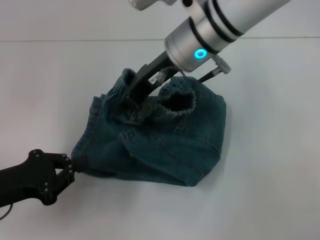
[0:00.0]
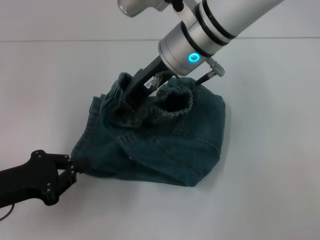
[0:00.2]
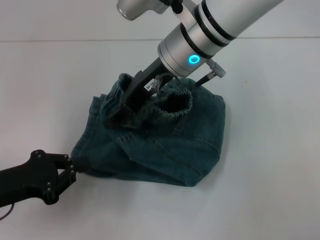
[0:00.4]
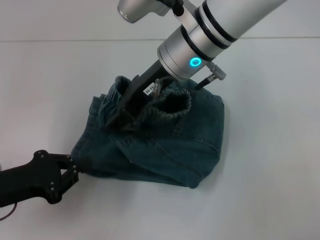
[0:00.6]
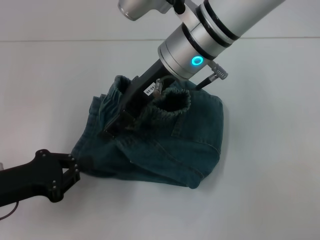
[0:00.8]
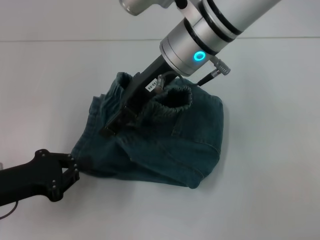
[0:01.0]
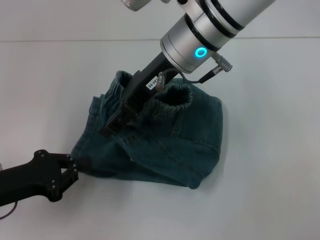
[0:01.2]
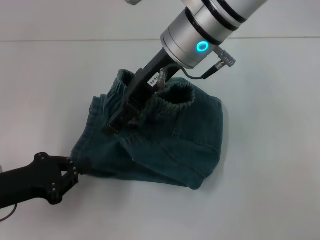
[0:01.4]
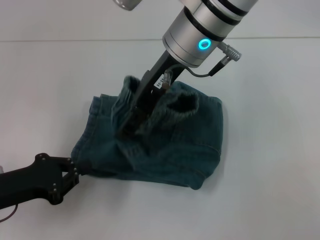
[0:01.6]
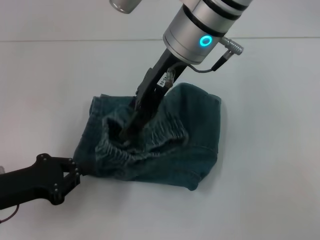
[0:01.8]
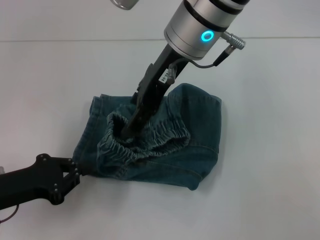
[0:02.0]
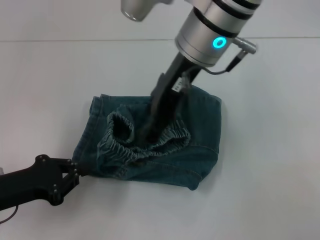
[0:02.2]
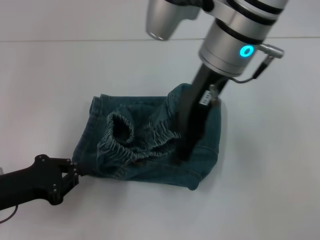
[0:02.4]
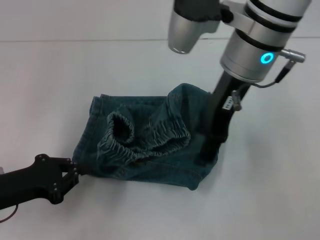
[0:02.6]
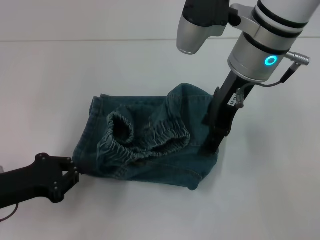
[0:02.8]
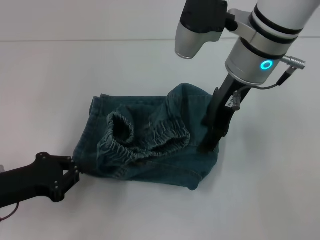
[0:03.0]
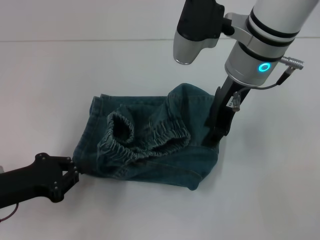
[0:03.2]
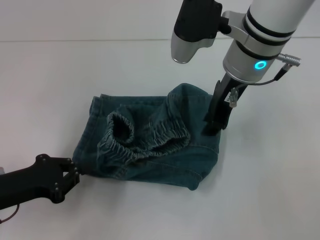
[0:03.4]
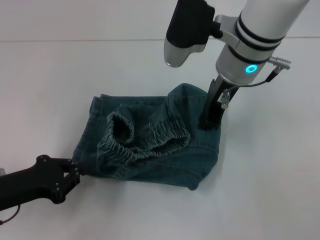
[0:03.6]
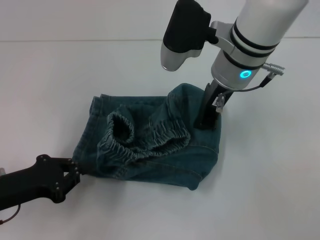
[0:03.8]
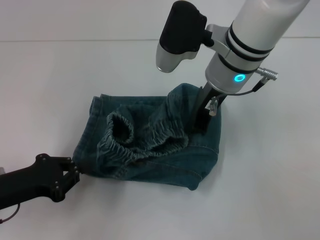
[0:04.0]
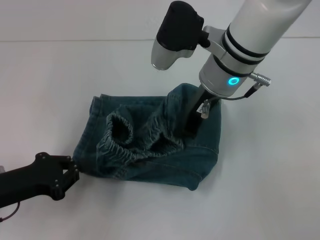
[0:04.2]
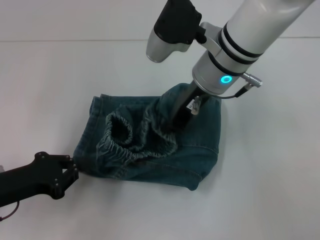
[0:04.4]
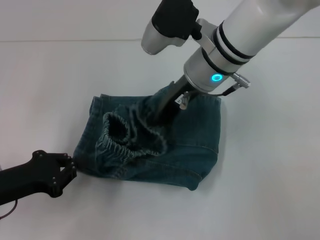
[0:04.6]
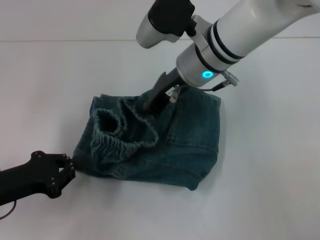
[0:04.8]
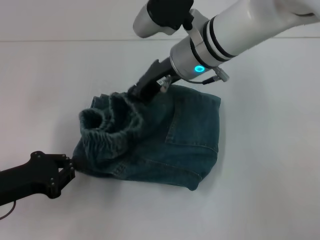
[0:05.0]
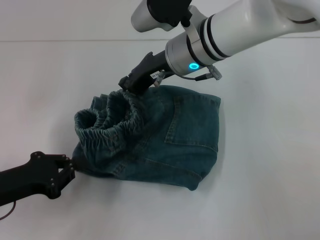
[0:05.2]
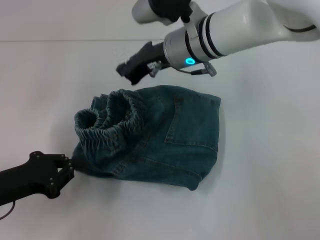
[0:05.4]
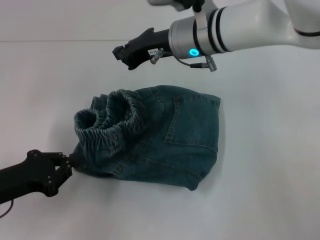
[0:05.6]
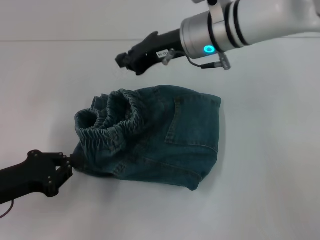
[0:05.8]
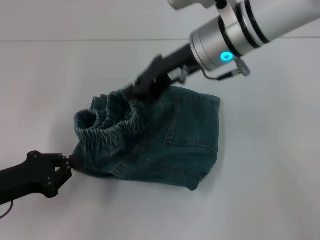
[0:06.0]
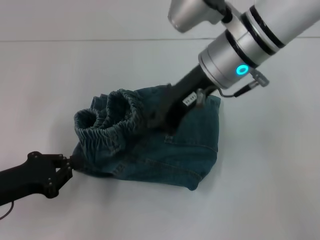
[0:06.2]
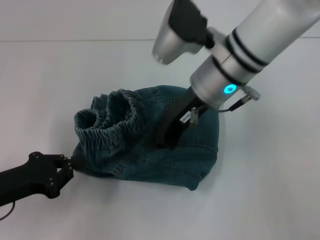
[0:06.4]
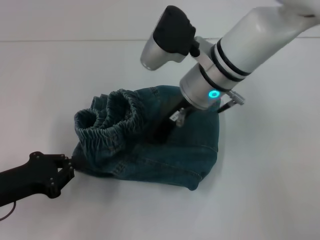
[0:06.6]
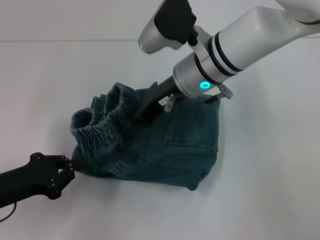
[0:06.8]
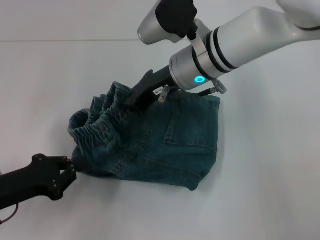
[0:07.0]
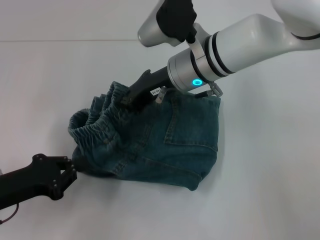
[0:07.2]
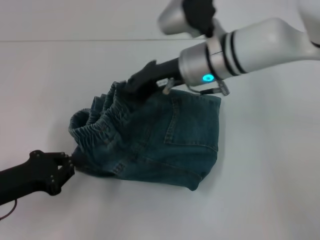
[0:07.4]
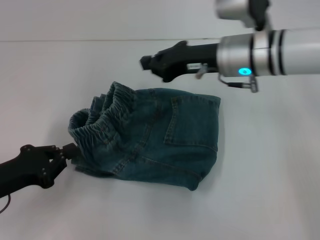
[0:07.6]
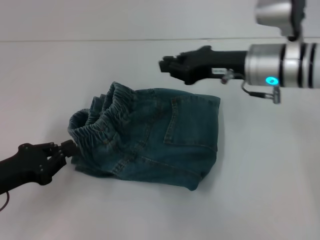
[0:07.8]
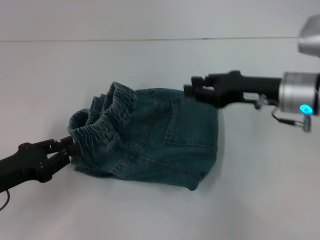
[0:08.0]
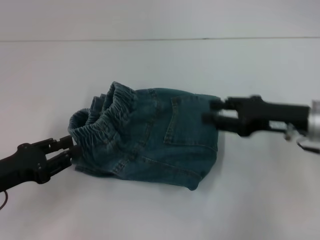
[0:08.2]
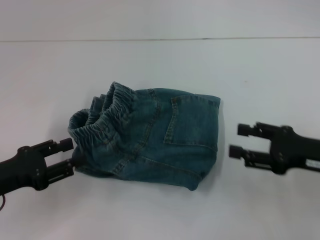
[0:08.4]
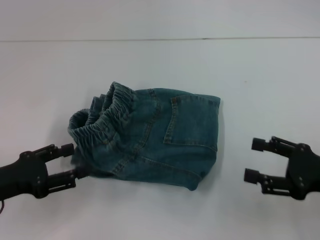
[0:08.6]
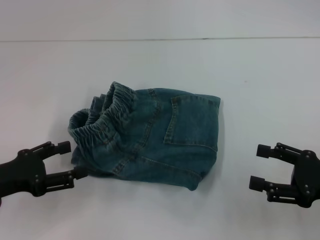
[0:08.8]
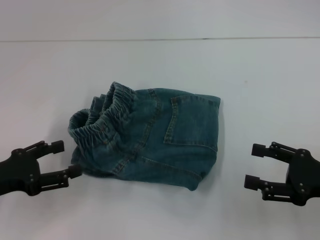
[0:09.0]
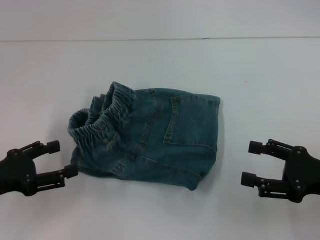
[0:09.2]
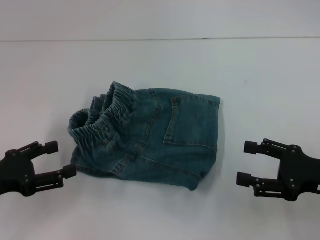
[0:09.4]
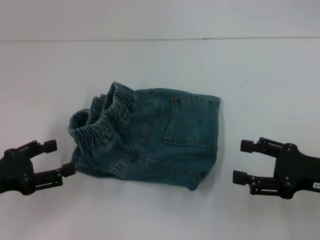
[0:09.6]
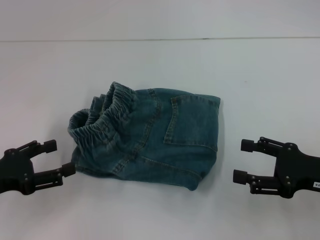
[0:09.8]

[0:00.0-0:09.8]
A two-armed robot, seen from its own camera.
Step, 0:00.0 to 0:07.2: Fold to the left with your right hand.
0:00.0 to 0:01.4: The right gripper opens its fingers.
0:01.4 to 0:02.8: The right gripper heads to the right, covering about 5 cm.
0:02.8 to 0:04.2: The right gripper closes.
0:07.0 to 0:08.4: The left gripper opens. The right gripper heads to the right and backward, covering about 25 cm, and opens up.
0:08.4 to 0:09.8: The left gripper opens up. The right gripper opens up.
